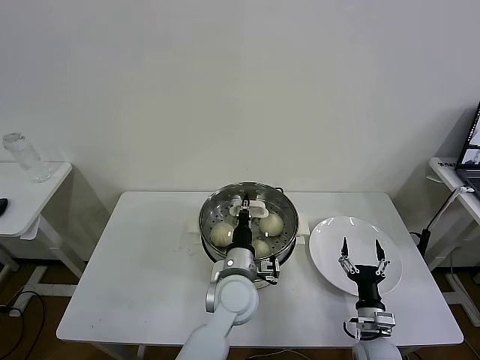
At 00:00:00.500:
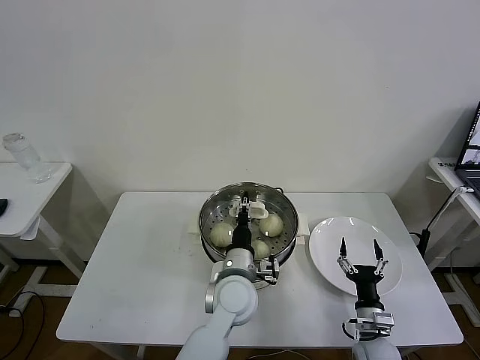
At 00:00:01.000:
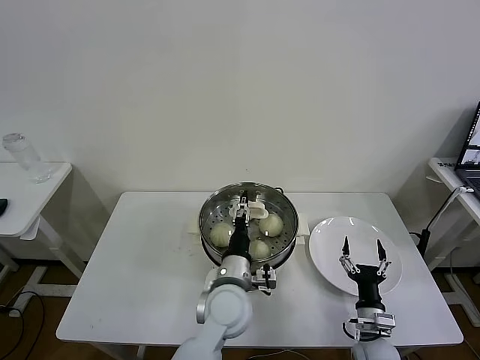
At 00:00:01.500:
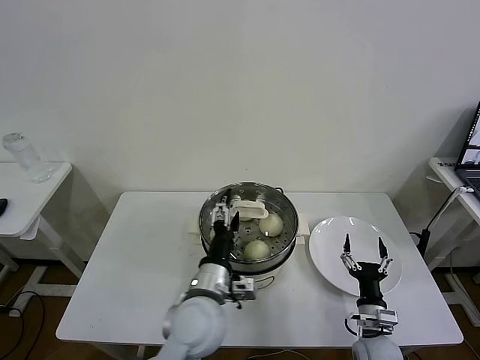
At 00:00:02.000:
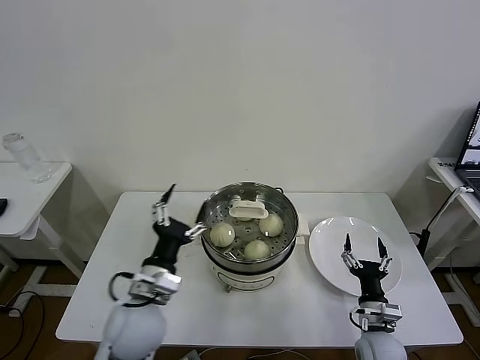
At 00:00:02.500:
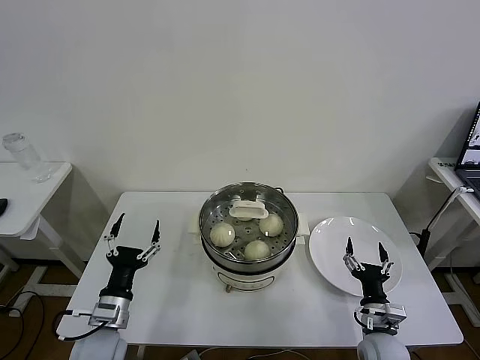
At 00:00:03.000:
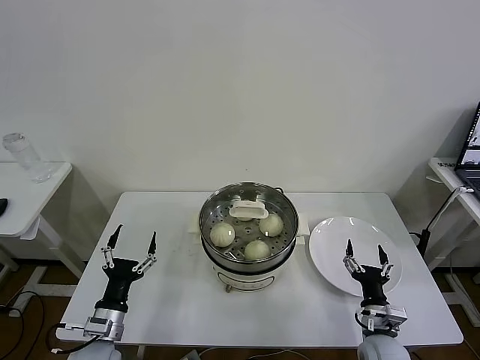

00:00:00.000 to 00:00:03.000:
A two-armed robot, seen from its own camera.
Task of the whole recording: take steamed baozi put them in steamer then cover it.
00:00:00.000 to 00:00:01.500: The left gripper travels backward and to the left by some 10 cm, and opens its fingers.
00:00:01.500 to 00:00:03.000: The left gripper is displaced to the left and downward by some 25 cm.
